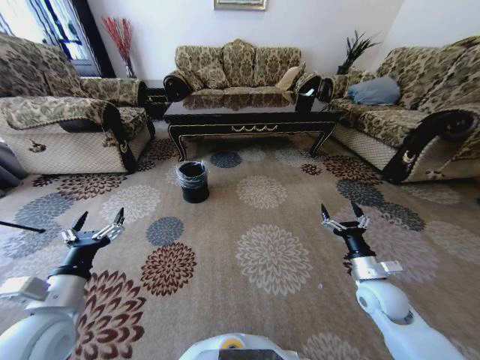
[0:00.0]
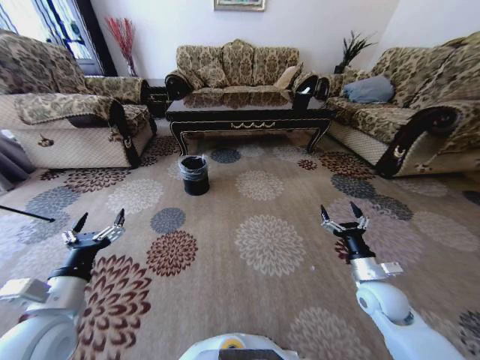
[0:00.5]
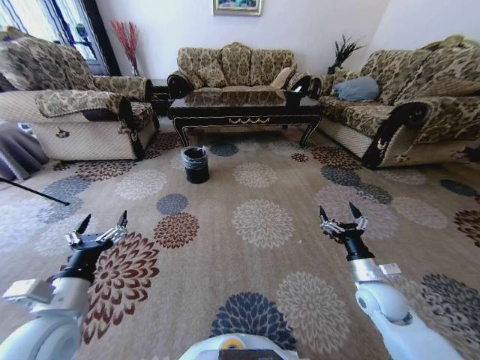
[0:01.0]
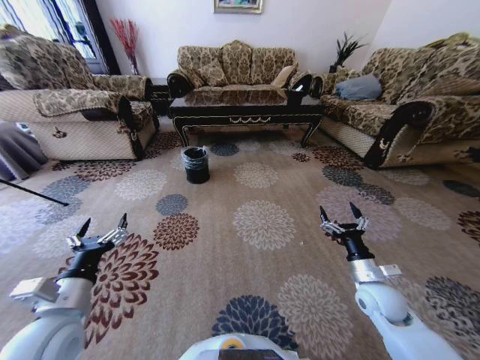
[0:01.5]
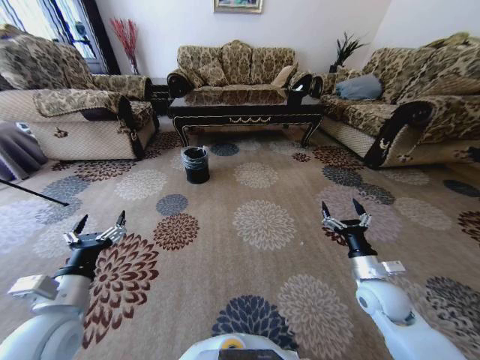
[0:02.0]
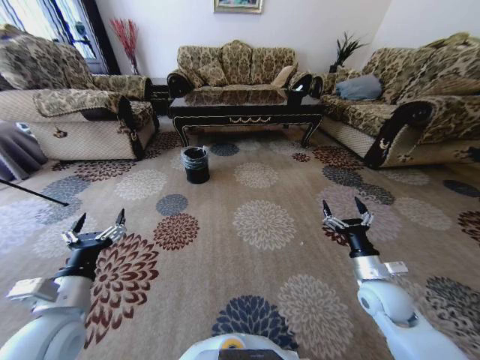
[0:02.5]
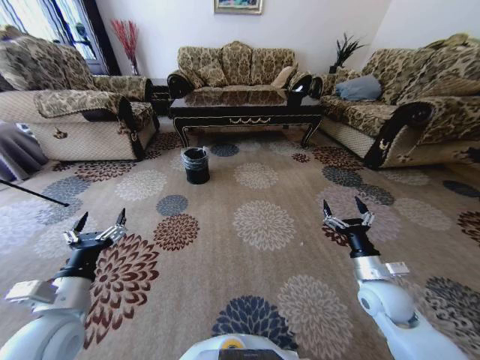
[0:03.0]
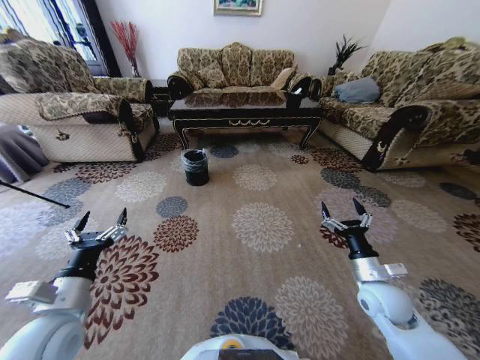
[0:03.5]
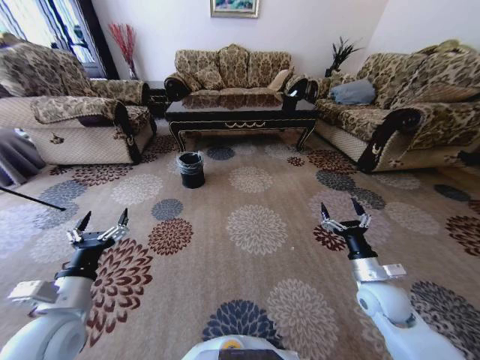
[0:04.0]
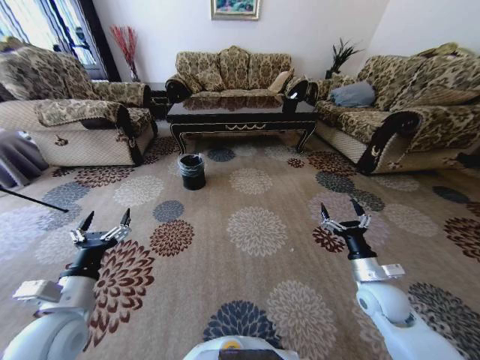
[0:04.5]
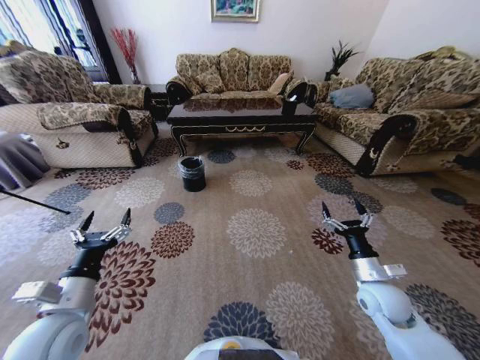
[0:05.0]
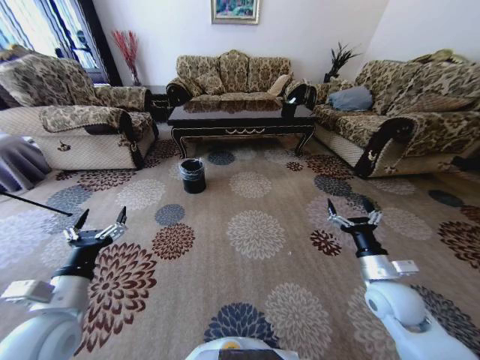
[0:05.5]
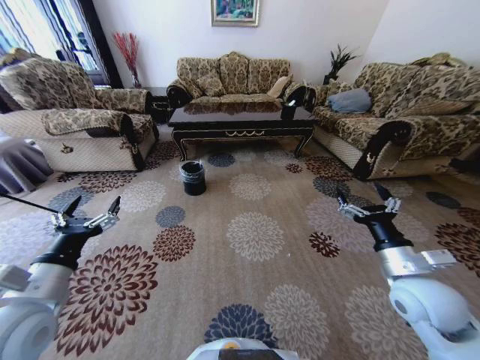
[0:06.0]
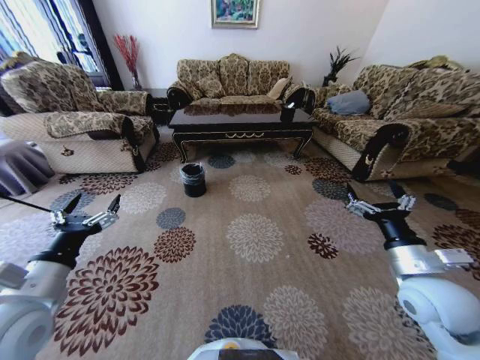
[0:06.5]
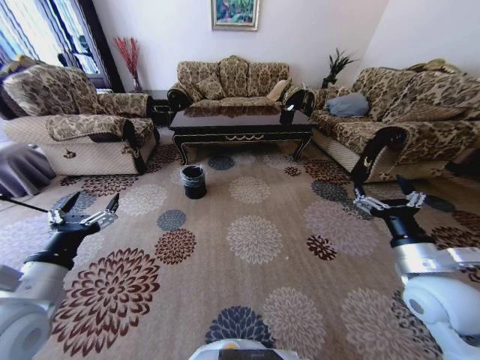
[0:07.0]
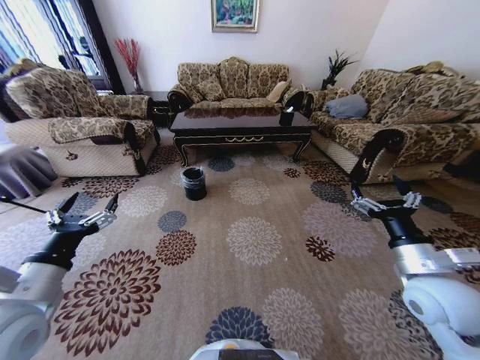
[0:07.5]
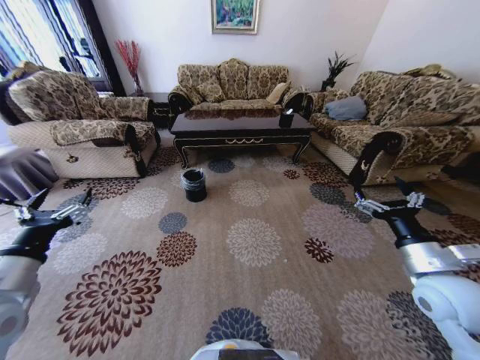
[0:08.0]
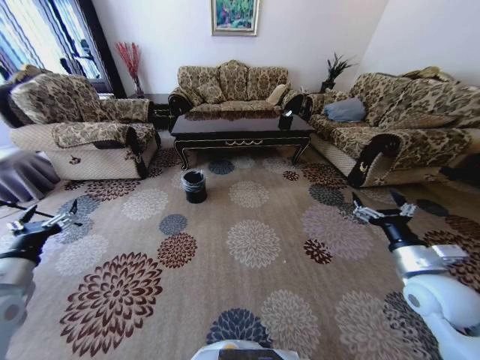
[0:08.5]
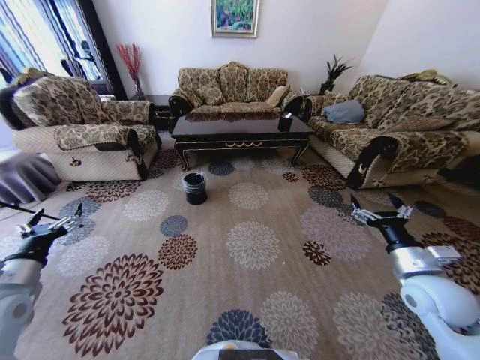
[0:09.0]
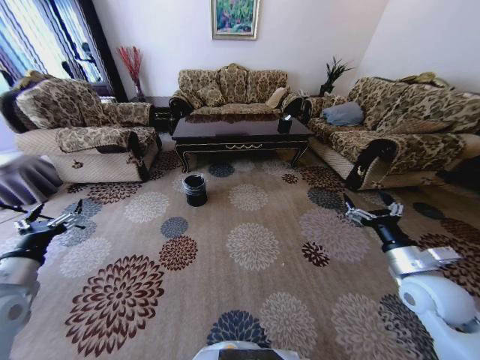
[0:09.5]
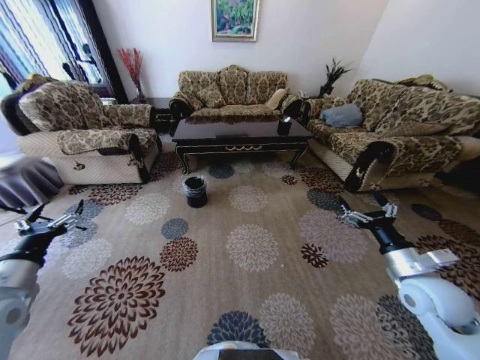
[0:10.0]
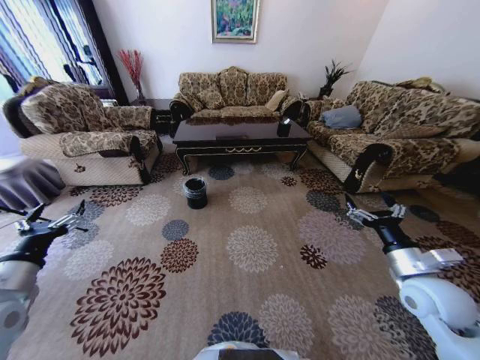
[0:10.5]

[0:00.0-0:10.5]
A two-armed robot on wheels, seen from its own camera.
Task of the whole recording: Move to the front of the table and pick up the trash from the floor, then place it into the trash bin.
0:04.0 to 0:06.5: The right gripper heads upward, covering approximately 10 cm; the left gripper travels upward by about 5 cm.
0:06.5 to 0:08.5: The left gripper shifts approximately 10 cm to the left.

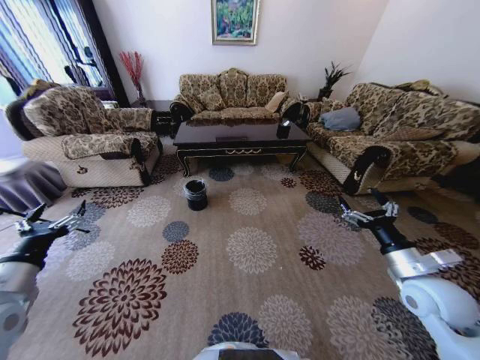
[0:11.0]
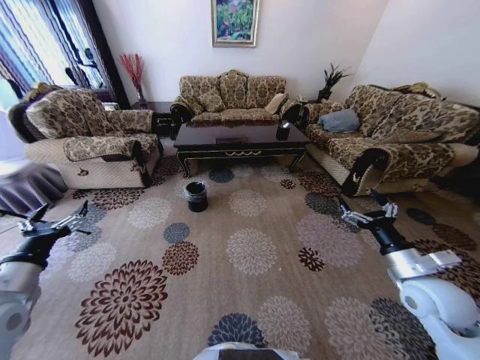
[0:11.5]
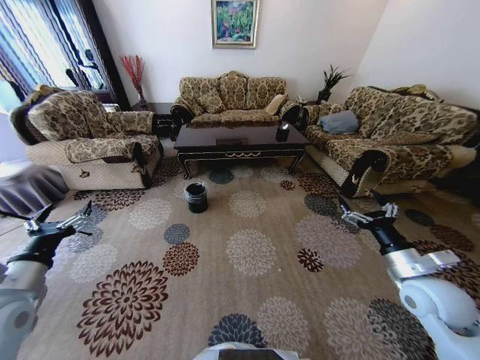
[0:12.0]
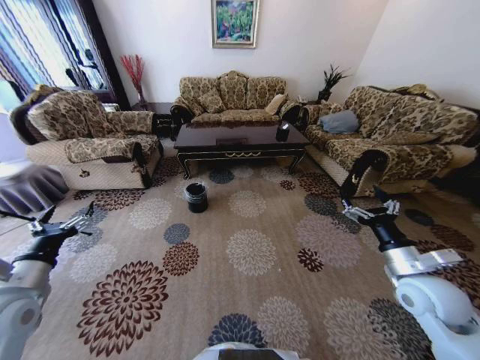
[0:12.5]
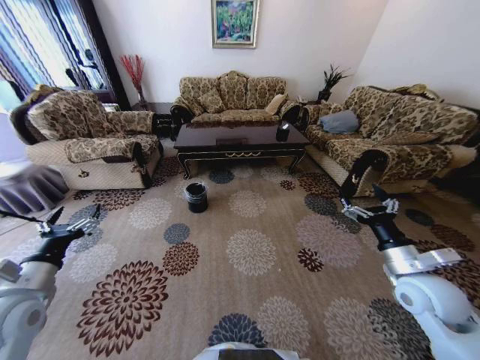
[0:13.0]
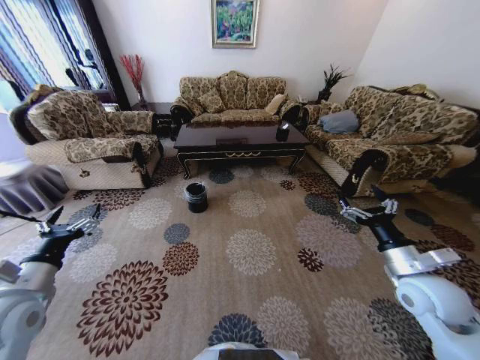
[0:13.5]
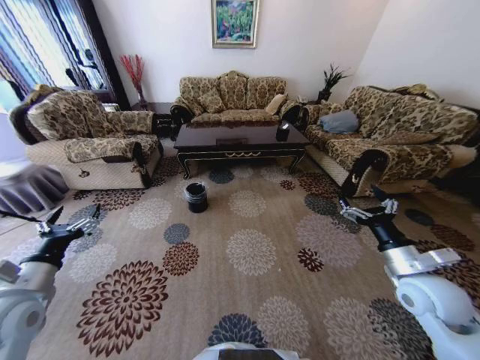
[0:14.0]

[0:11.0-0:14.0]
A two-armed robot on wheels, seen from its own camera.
Task of the whole recording: Move to the front of the table and pick up the trash from the floor, then place it into the trash bin.
0:11.0 to 0:12.5: There are only small adjustments of the grippers.
0:12.5 to 0:14.0: Both grippers stay about where they are.

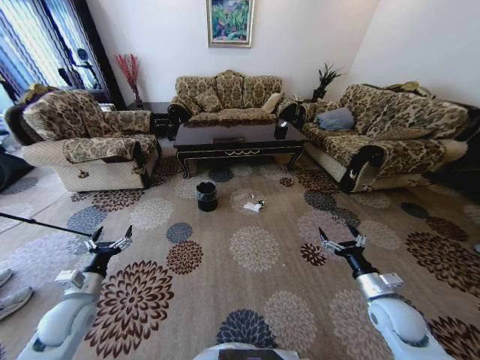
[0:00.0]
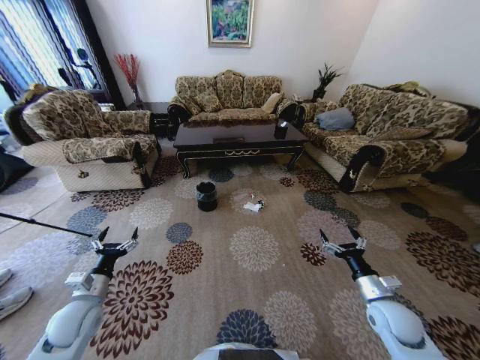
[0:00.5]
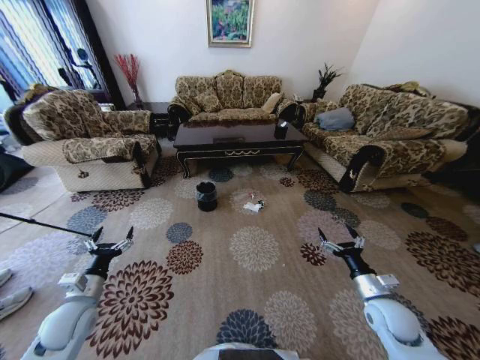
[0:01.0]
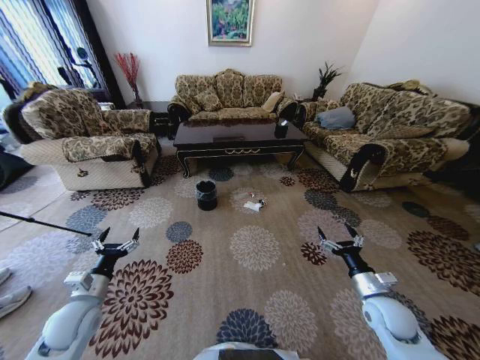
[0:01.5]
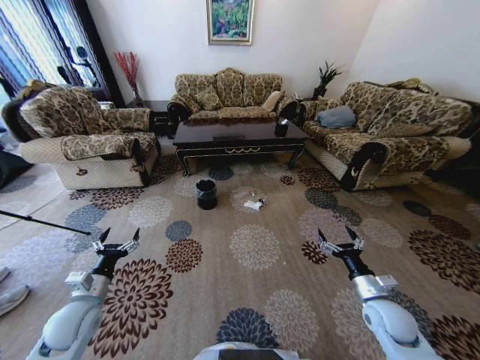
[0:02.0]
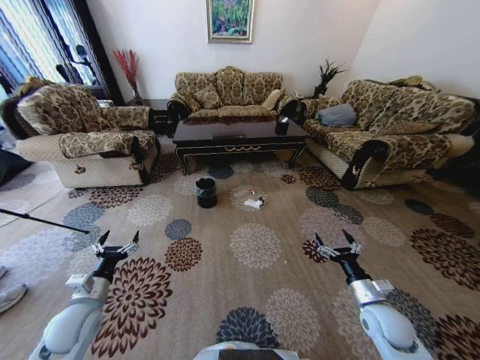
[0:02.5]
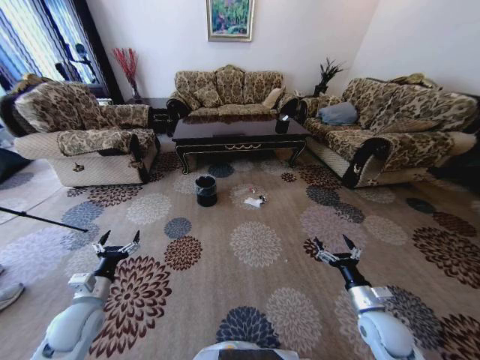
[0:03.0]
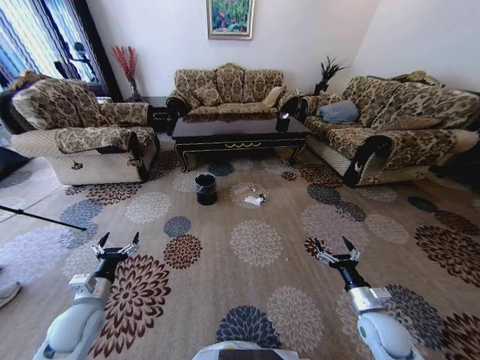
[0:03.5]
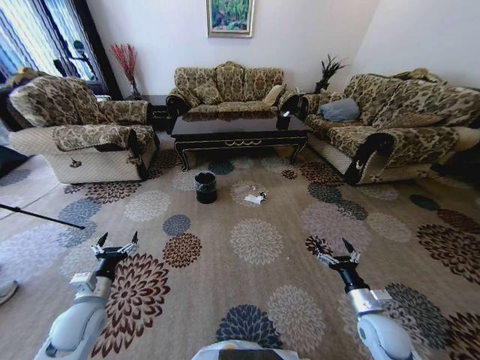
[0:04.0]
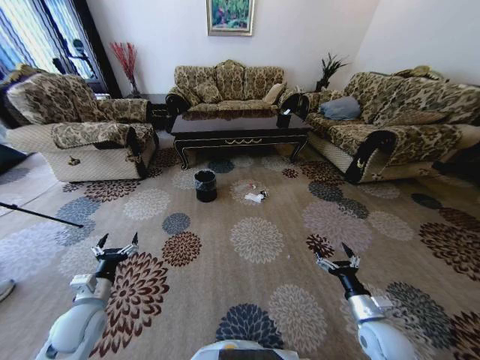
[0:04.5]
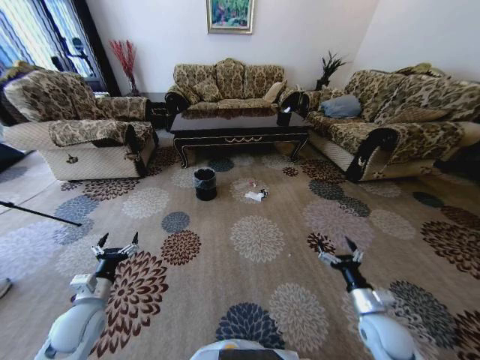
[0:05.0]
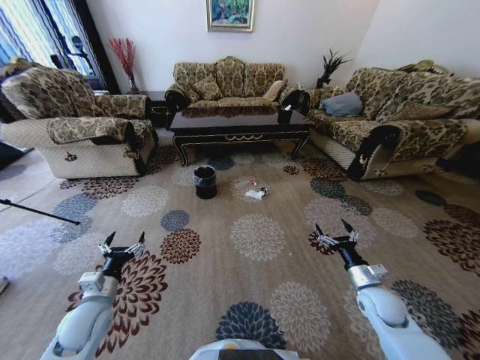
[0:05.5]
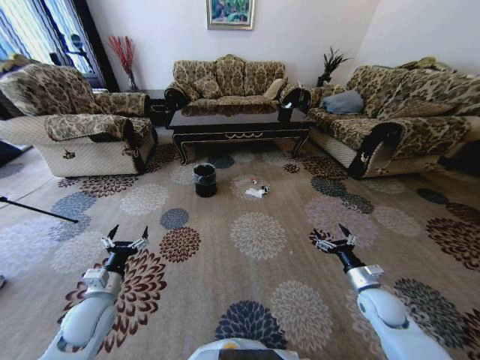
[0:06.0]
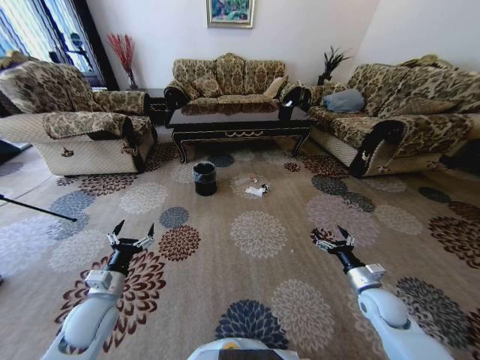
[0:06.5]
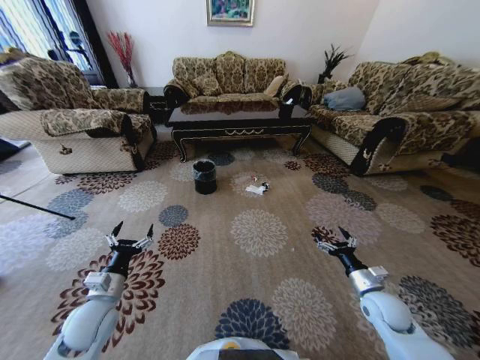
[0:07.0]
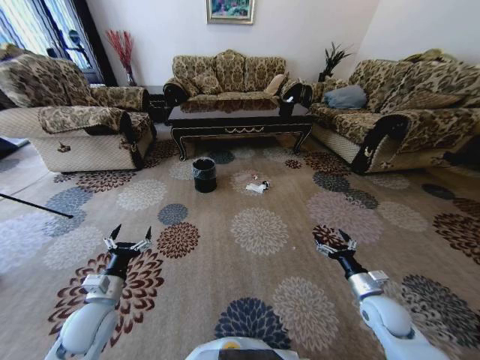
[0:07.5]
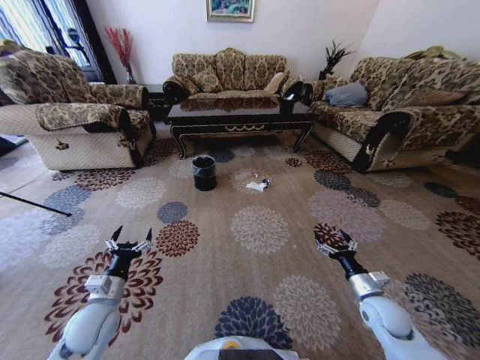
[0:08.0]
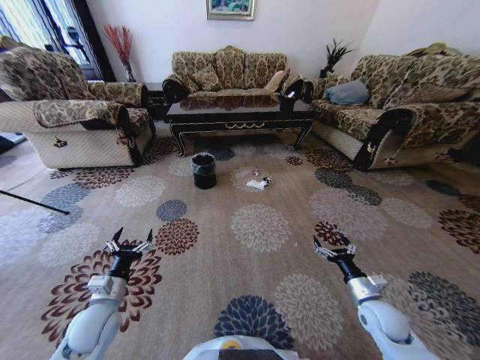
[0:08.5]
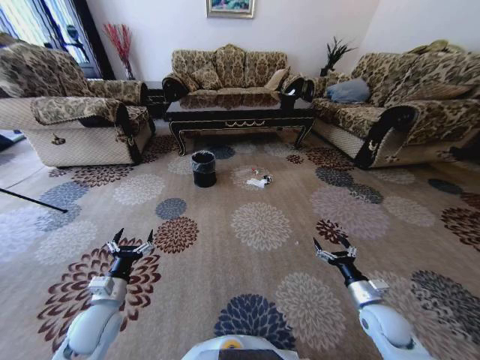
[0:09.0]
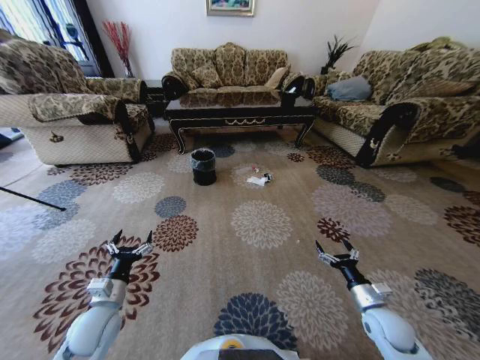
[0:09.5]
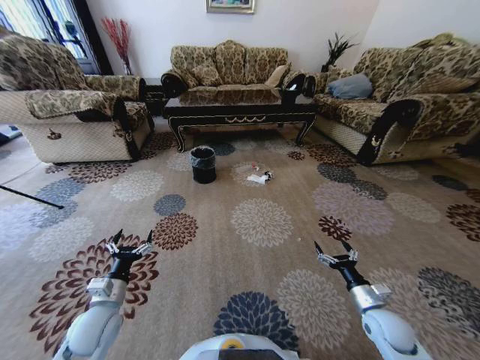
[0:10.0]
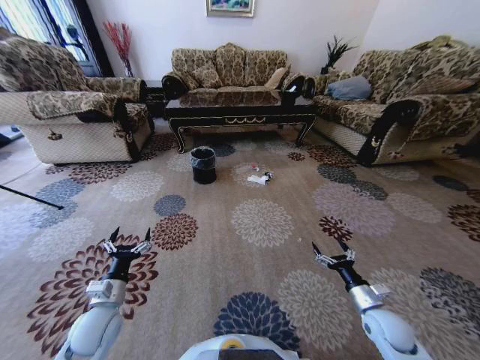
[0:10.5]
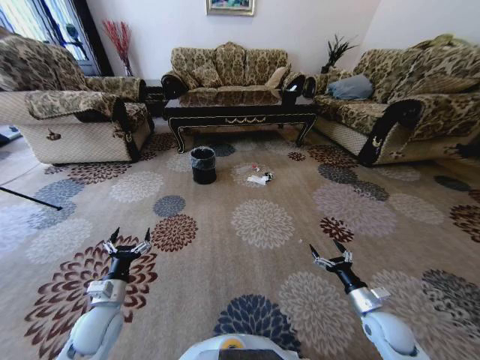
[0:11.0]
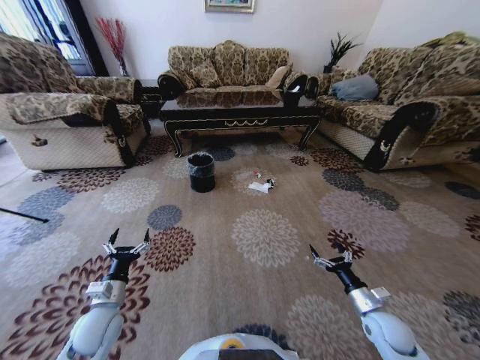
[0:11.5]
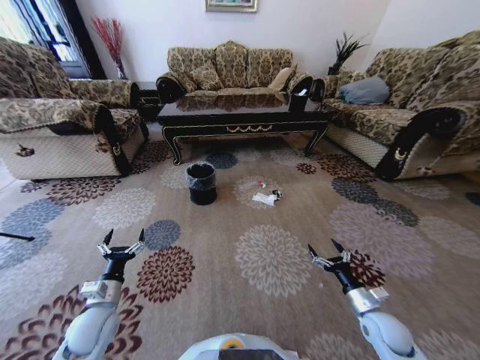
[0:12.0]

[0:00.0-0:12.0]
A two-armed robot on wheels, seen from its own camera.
Task of the whole recording: Move to the front of the table and pick up the trash from the floor, then place it into the trash bin.
0:04.0 to 0:06.0: The right gripper goes some 5 cm forward.
